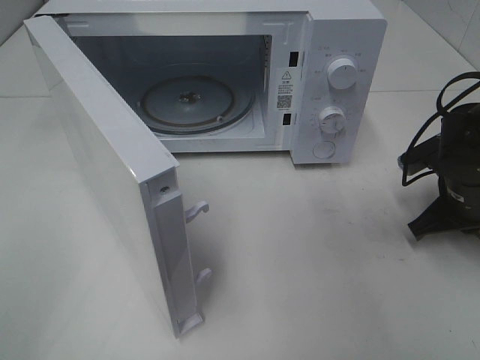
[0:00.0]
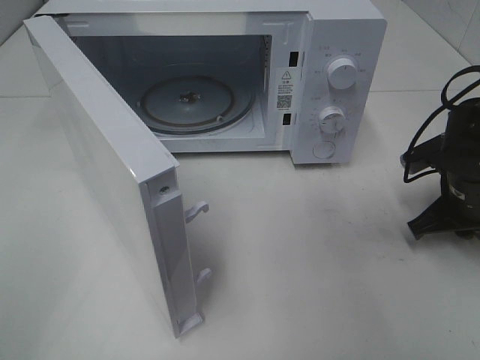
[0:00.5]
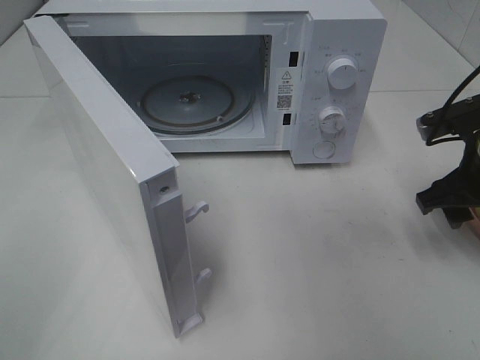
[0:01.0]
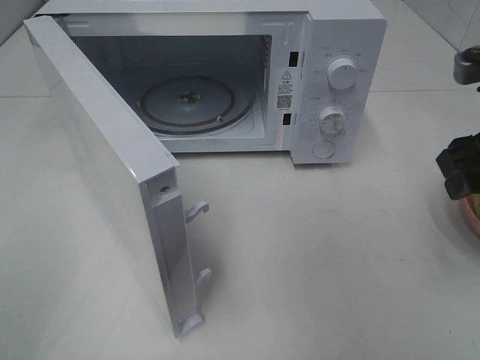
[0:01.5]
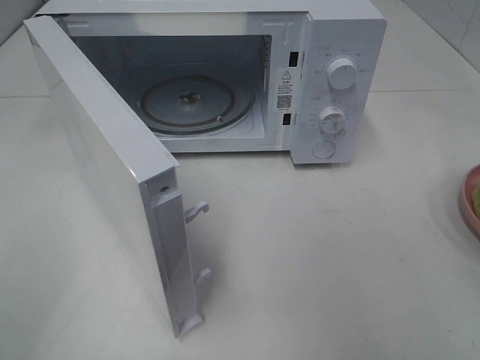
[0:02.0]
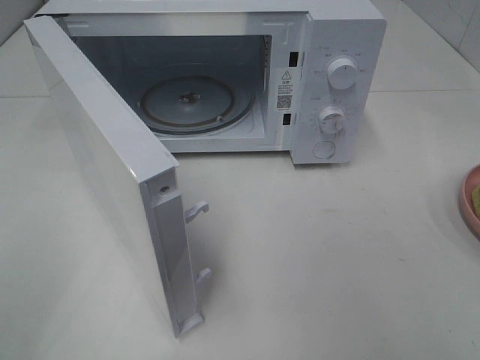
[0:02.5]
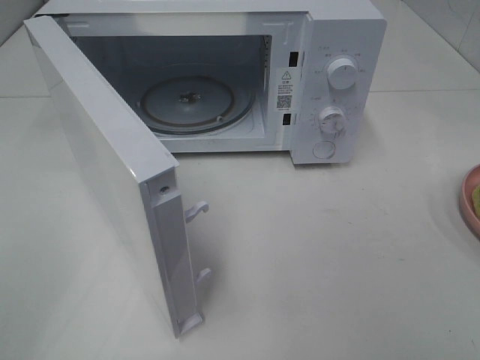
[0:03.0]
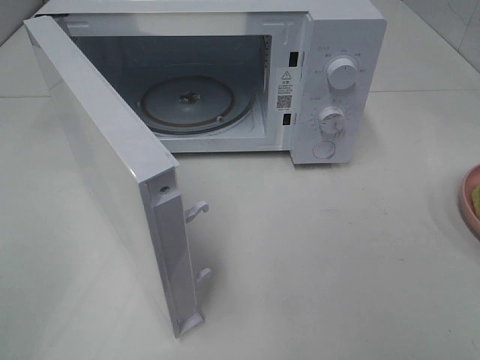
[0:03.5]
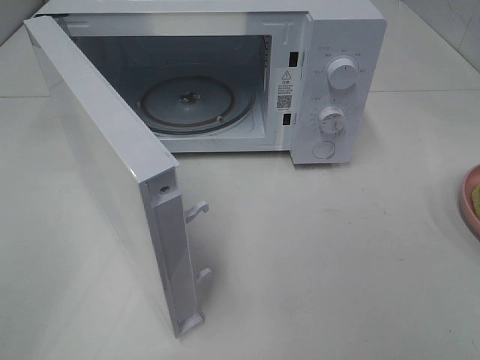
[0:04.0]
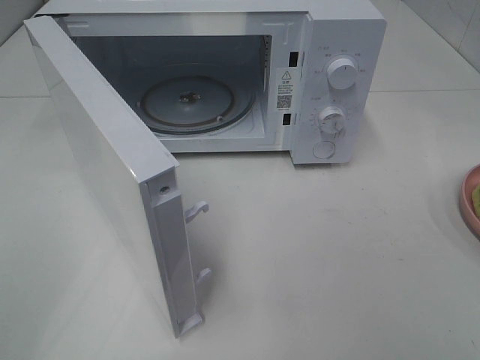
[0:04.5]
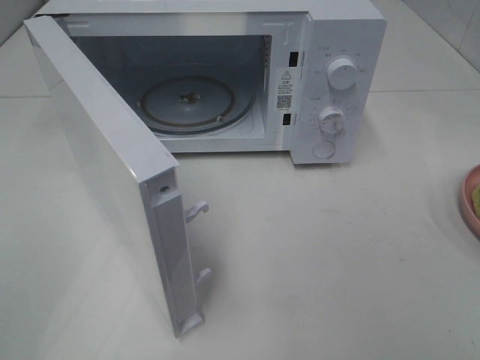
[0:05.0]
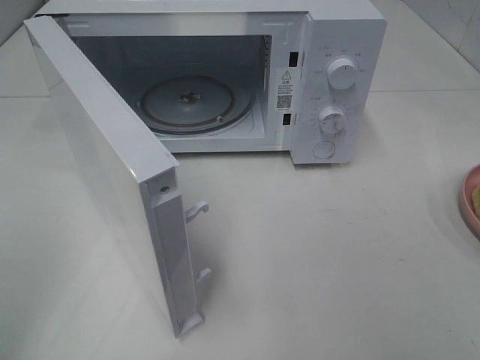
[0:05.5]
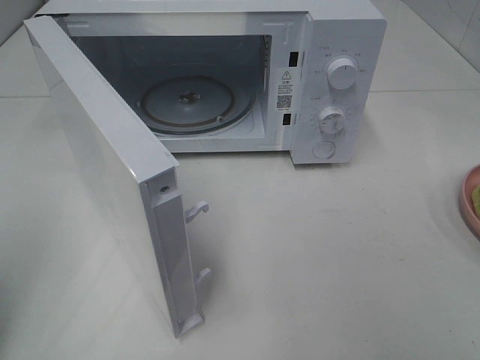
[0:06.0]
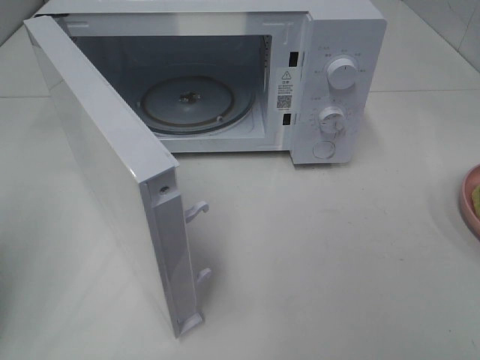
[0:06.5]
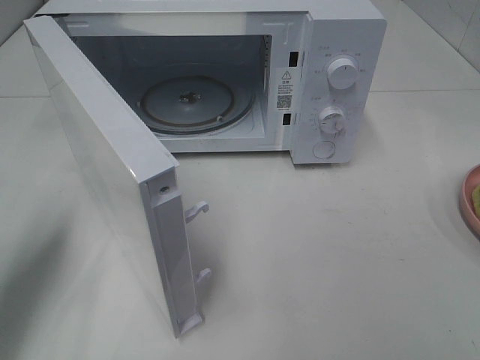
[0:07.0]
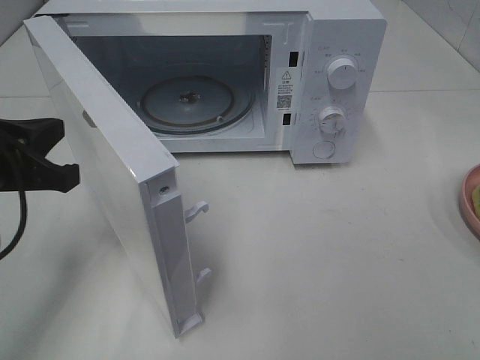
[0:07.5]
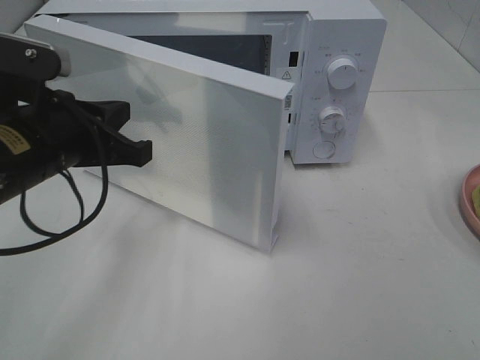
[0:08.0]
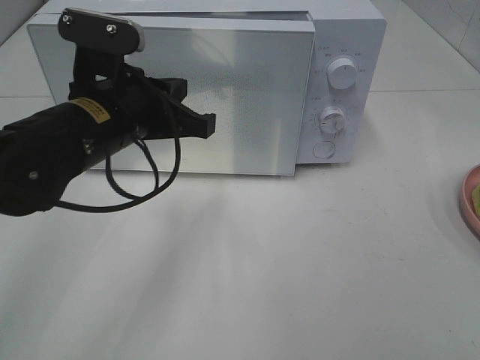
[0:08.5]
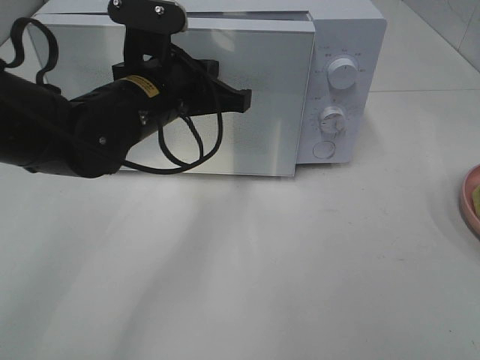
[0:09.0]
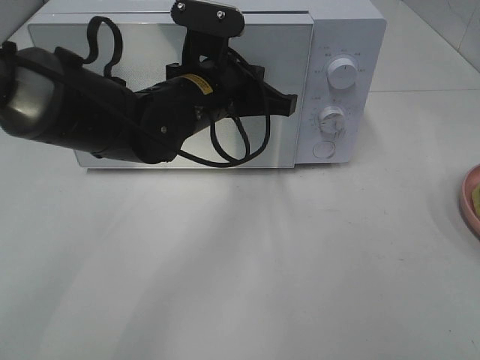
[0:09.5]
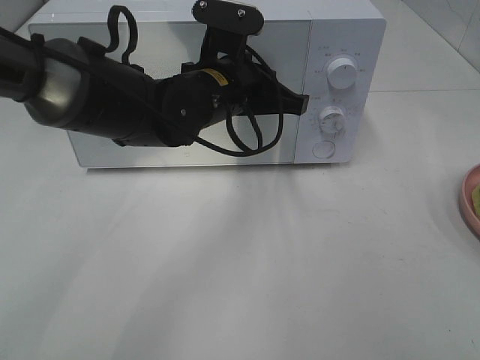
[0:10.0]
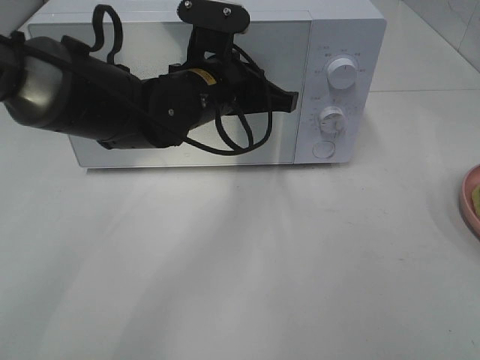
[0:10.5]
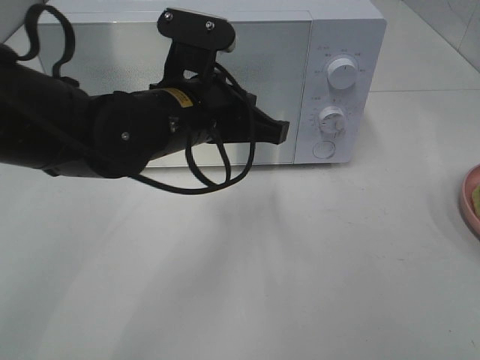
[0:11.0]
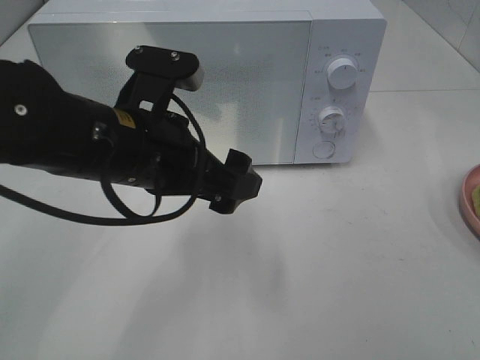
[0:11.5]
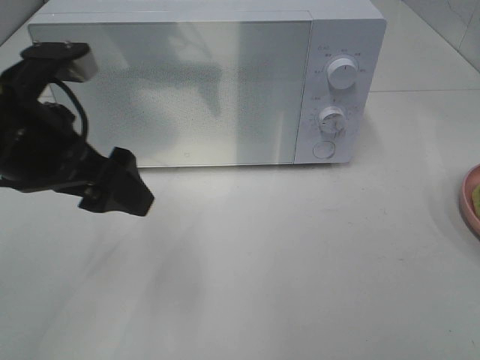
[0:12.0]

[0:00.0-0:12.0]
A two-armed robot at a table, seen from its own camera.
Task of the whole recording: Heat Sandwich.
0:00.0 to 0:02.0: The right gripper shifts some 25 cm upward and backward, and opens its fingers.
0:06.0 to 0:08.0: The left gripper goes approximately 20 cm to the right and forward.
0:08.0 to 0:10.0: The left gripper is displaced to the right and forward by approximately 20 cm.
0:10.0 to 0:12.0: The left gripper is displaced to the left and backward by approximately 20 cm, and opens its fingers.

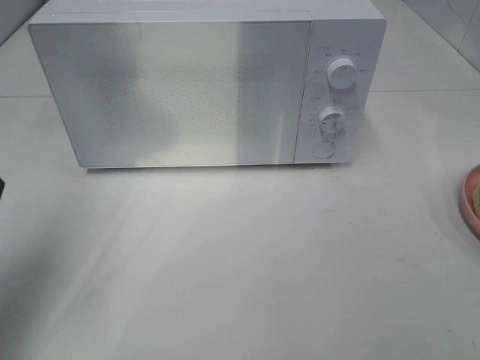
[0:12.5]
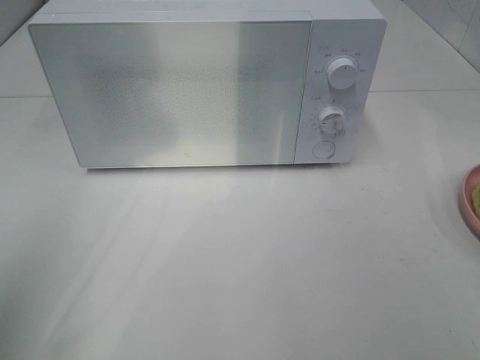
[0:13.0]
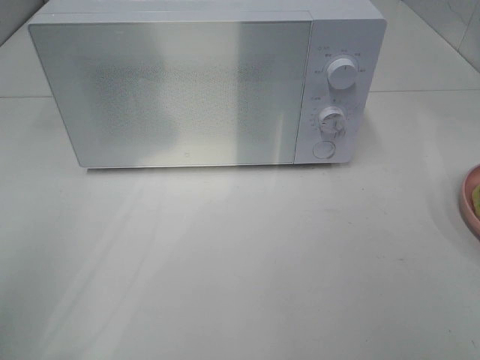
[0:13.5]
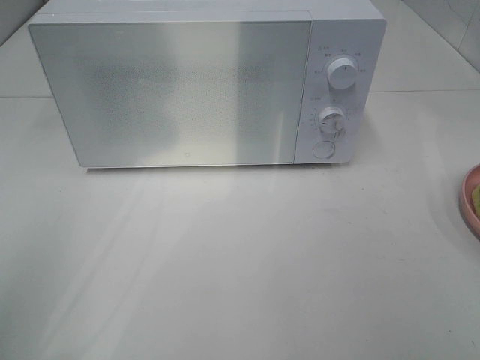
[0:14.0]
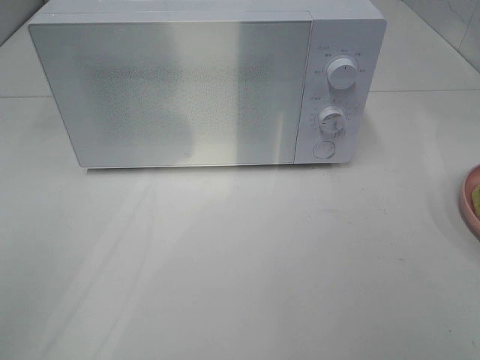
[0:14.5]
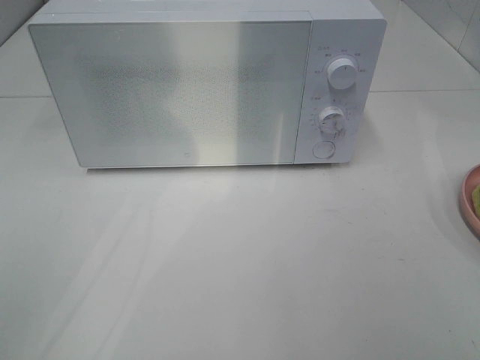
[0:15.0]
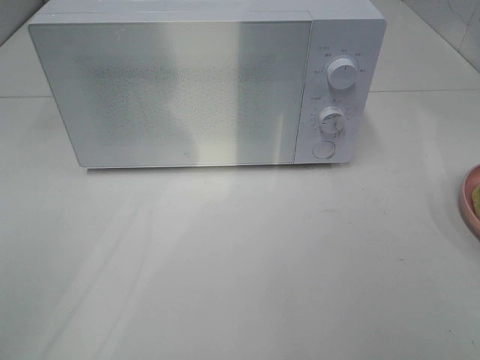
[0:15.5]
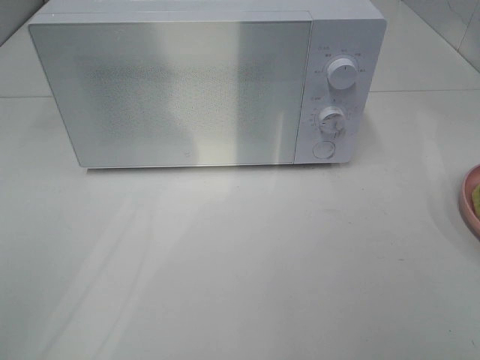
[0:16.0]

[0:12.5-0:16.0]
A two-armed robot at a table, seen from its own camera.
Task of the whole recording: Heat Sandwich.
0:12.5 to 0:14.5: The left gripper goes some 20 cm backward.
0:14.5 to 0:16.0: Both grippers stay about where they are.
